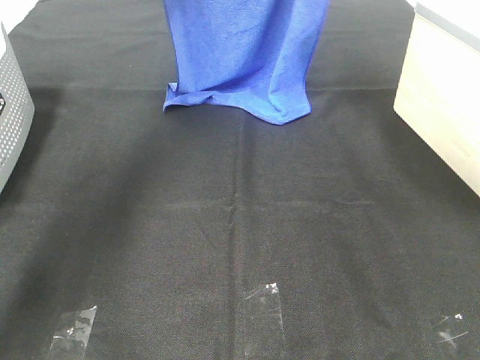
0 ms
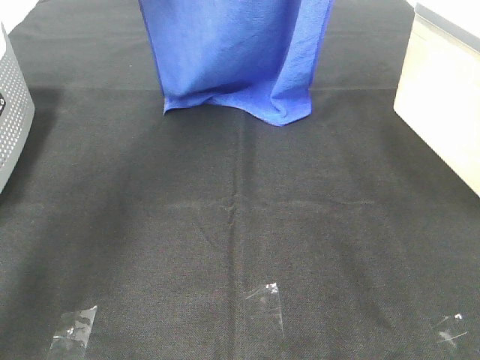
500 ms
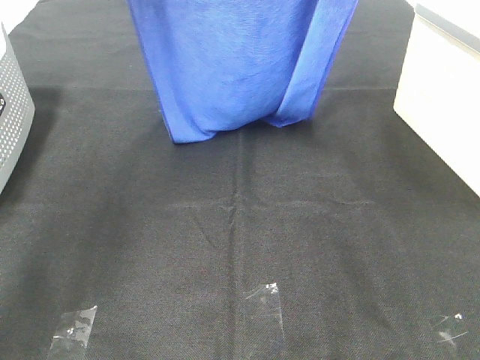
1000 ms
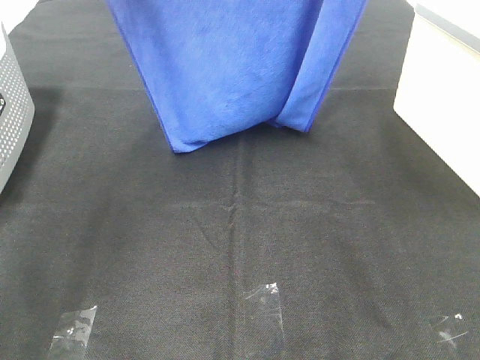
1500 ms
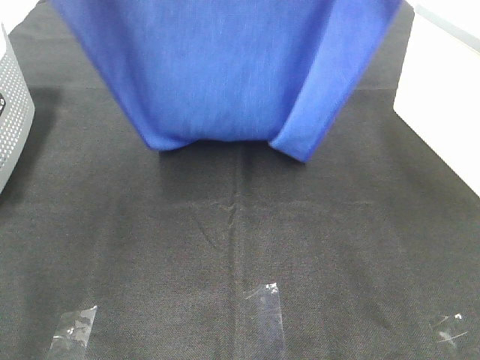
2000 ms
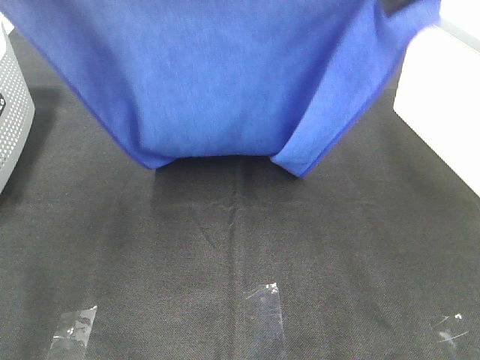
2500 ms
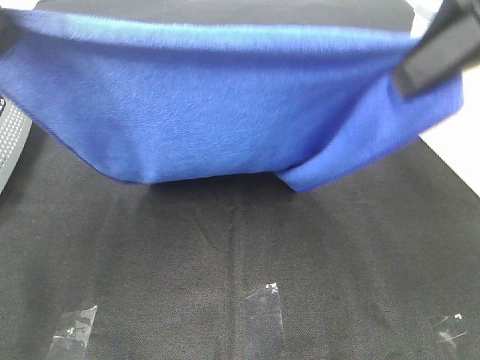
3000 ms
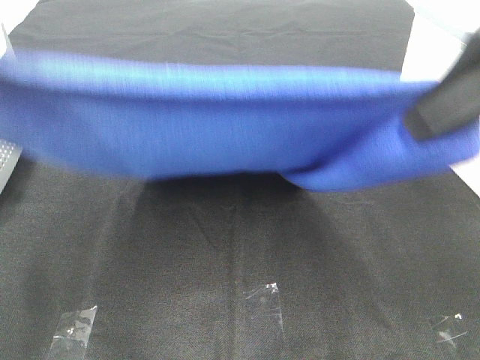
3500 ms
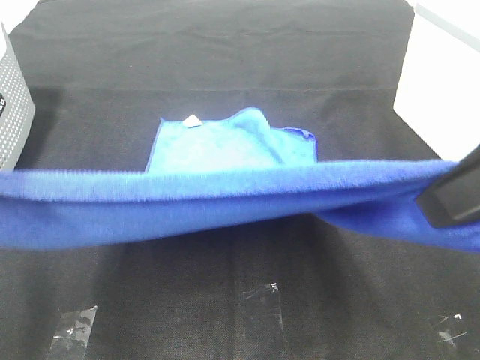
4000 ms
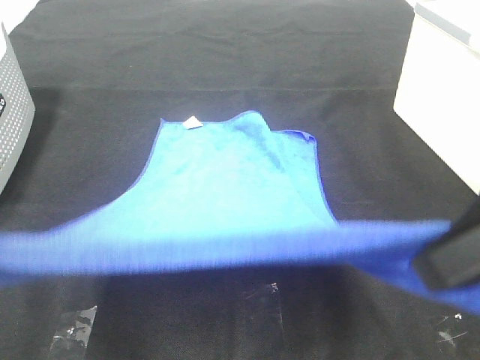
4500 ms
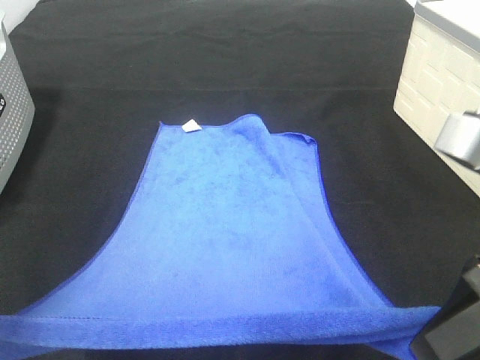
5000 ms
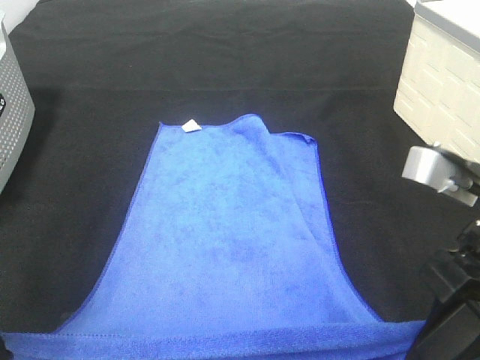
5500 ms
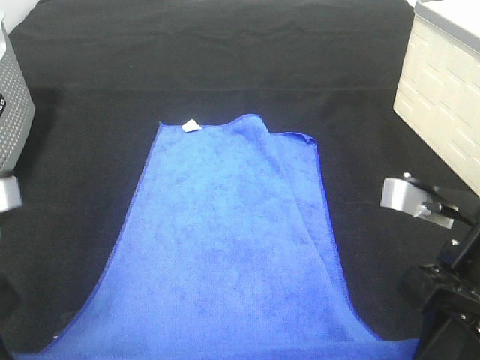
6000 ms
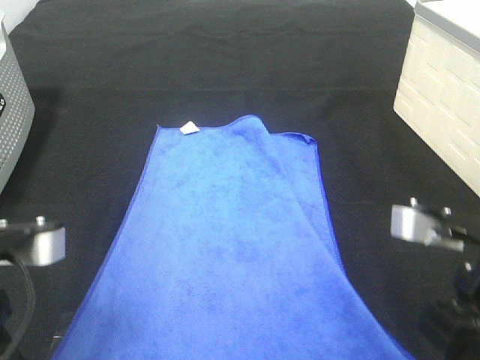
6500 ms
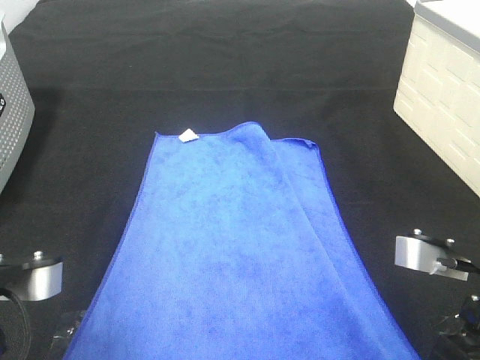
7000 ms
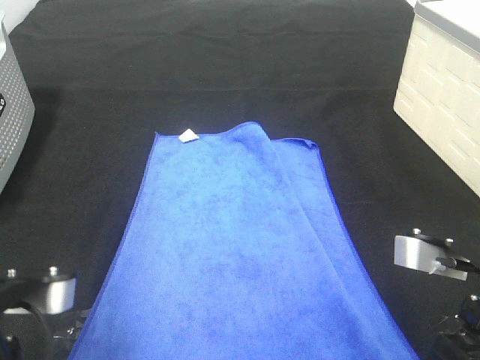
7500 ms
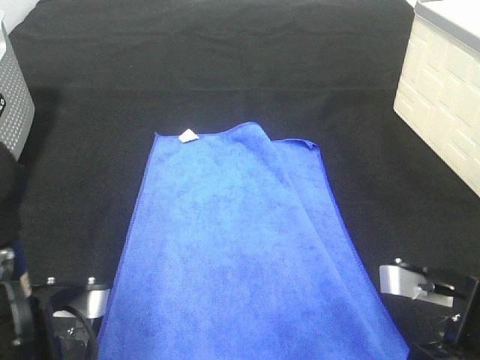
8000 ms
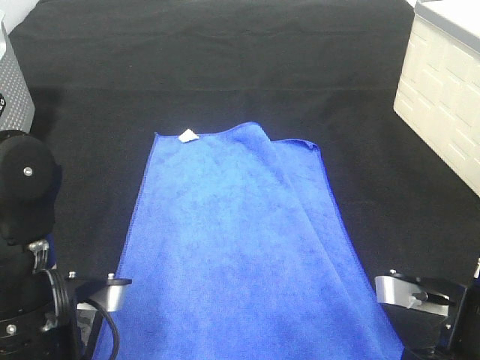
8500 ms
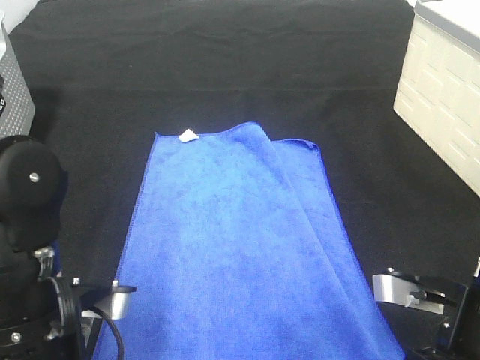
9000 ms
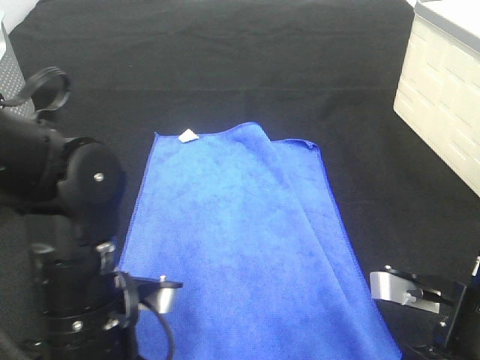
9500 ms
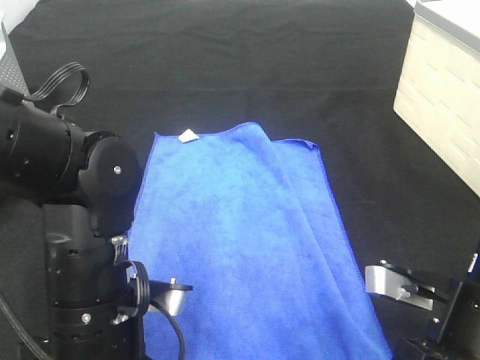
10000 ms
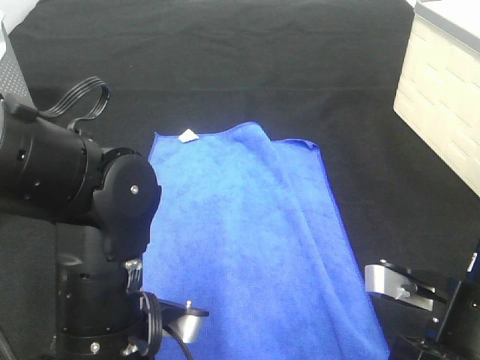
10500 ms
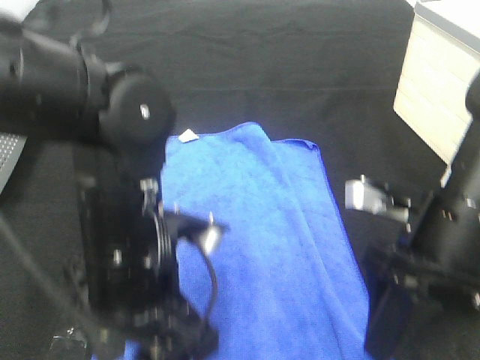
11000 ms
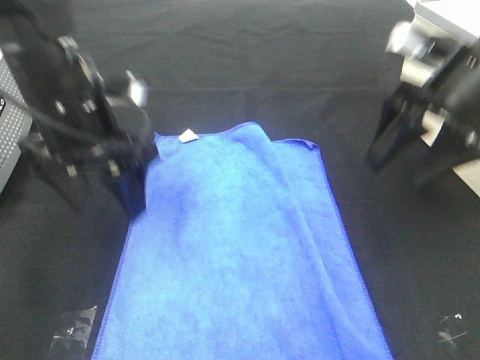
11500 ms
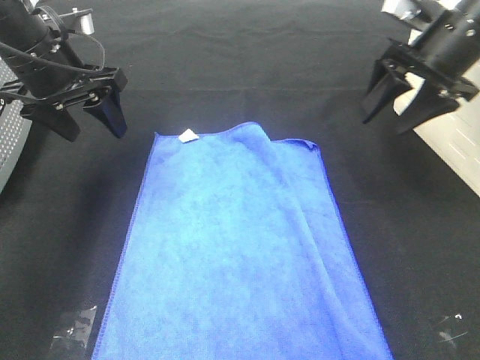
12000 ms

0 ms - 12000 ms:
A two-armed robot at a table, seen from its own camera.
Task of the whole recording: Remove the towel and place it.
Step, 0 ms - 4500 ms: Left hand: spread the blue towel flat on the table.
Step, 0 ms - 4500 ms: Right hand: spread the blue towel flat on the table.
0 ms - 2000 ms: The two grippers go approximately 20 cm backward.
2000 ms - 4000 ms: The left gripper is displaced downward and backward by about 20 cm; the right gripper travels backward and downward by some 15 cm.
4000 ms - 6000 ms: The grippers both shift downward by about 10 cm.
6000 ms - 8000 ms: The left gripper heads downward and to the right, covering approximately 10 cm. Meanwhile the right gripper heads downward, covering some 5 cm.
8000 ms - 10000 ms: The left gripper moves to the right, about 5 cm.
10000 ms - 12000 ms: The right gripper shifts approximately 25 cm forward and upward, and opens its fingers; the left gripper is displaced forward, to the left and upward by roughly 30 cm, and opens its fingers.

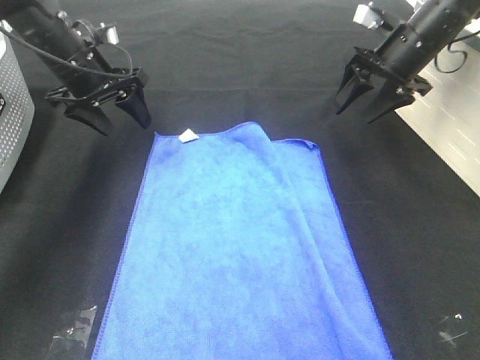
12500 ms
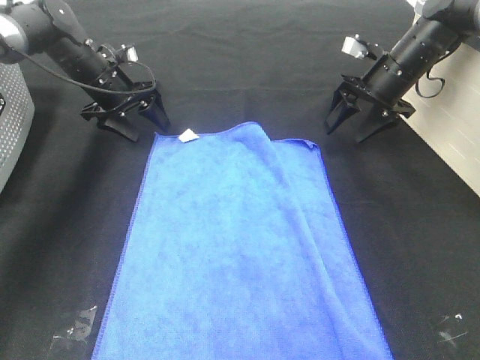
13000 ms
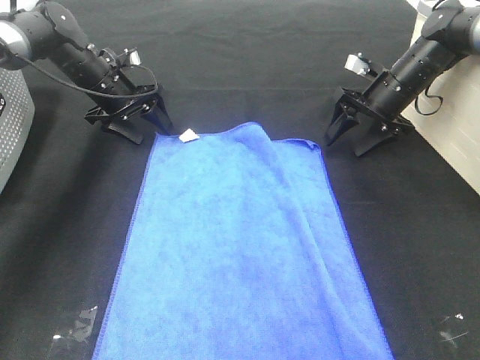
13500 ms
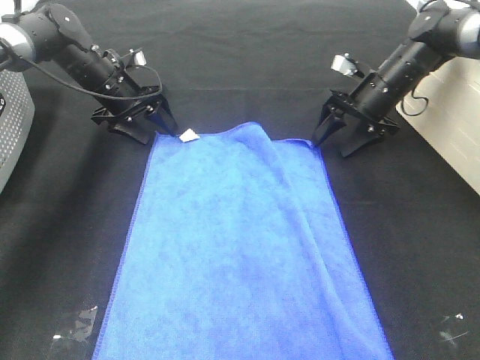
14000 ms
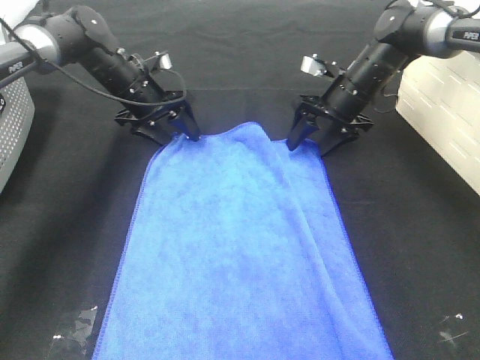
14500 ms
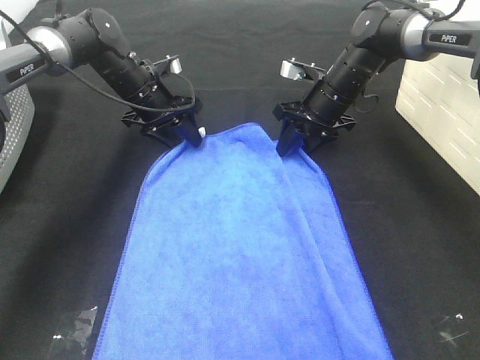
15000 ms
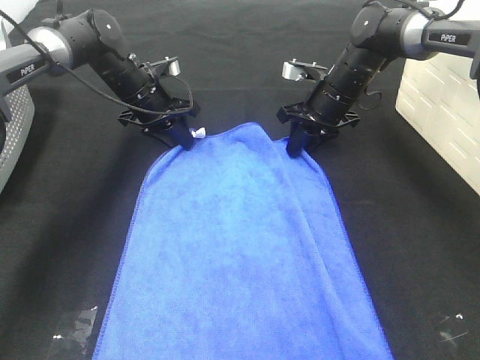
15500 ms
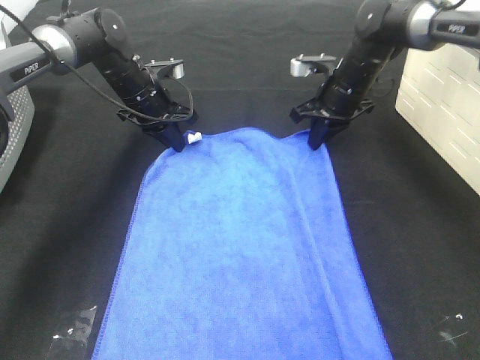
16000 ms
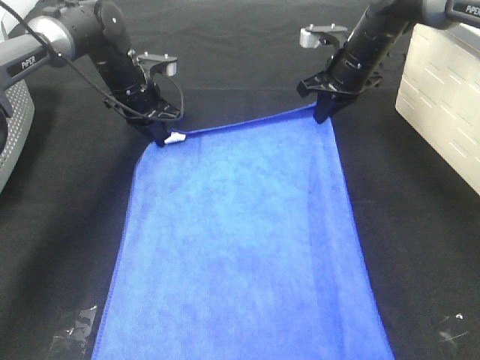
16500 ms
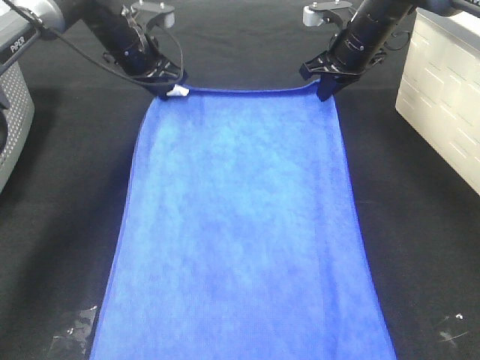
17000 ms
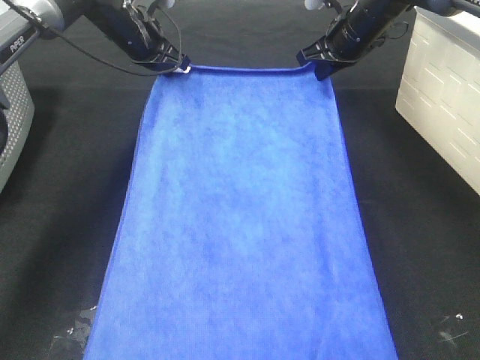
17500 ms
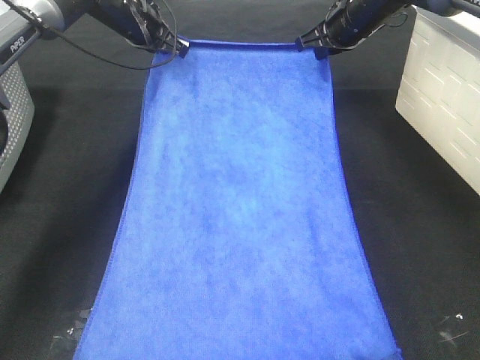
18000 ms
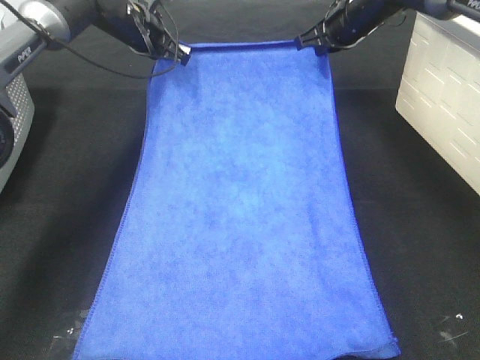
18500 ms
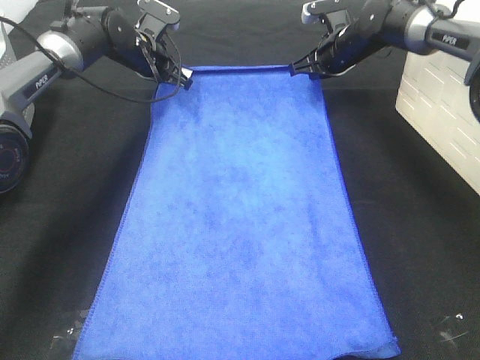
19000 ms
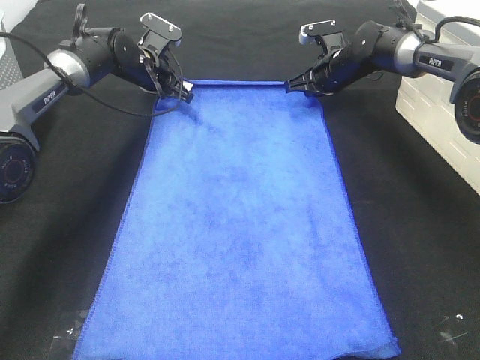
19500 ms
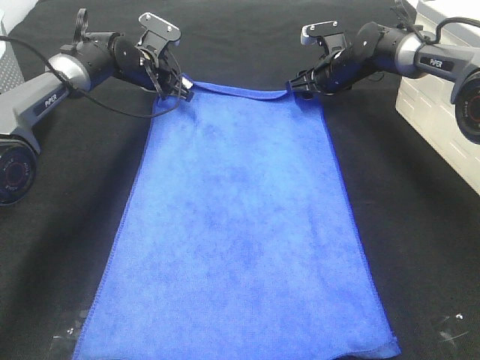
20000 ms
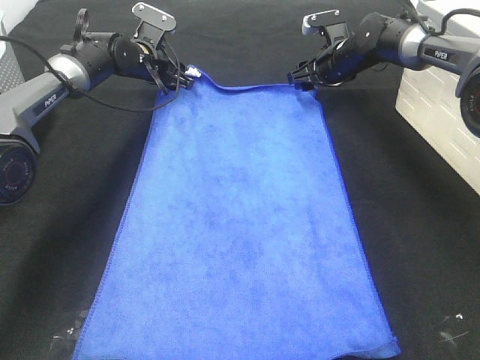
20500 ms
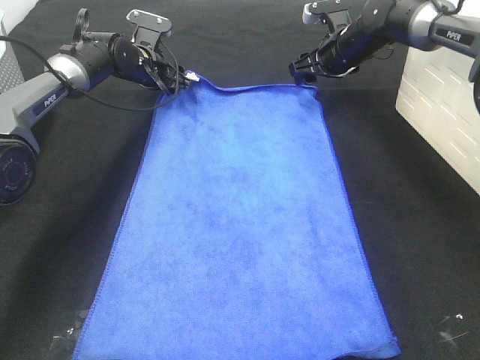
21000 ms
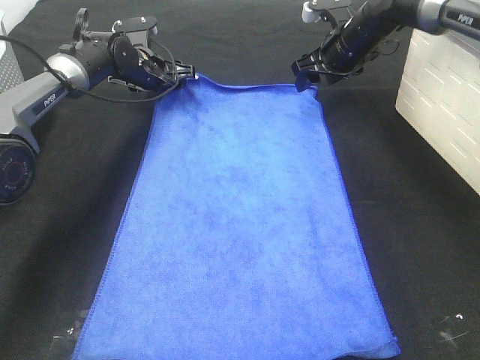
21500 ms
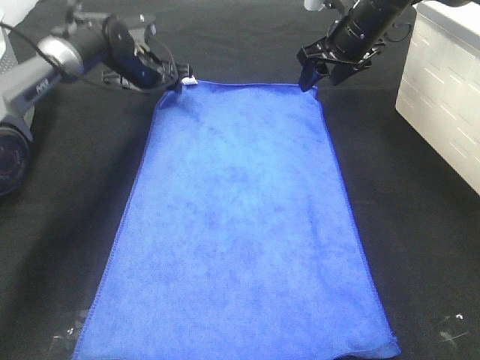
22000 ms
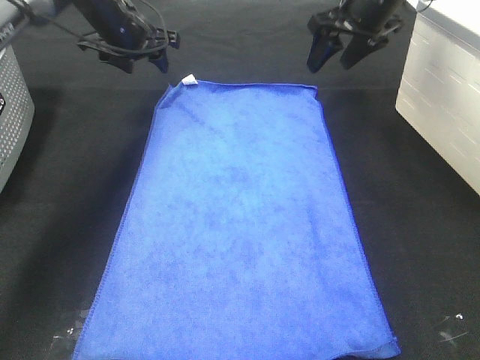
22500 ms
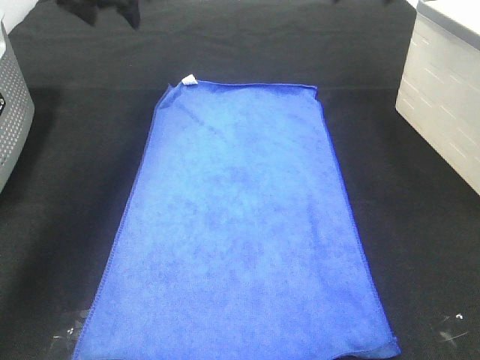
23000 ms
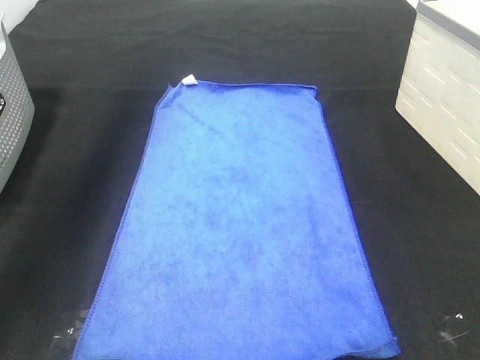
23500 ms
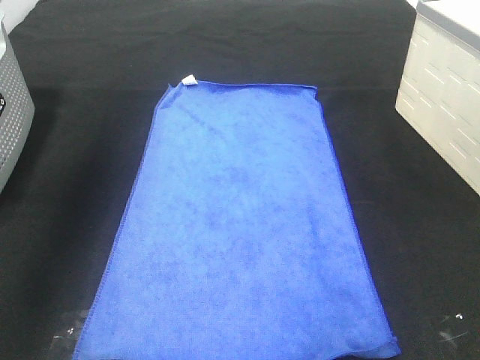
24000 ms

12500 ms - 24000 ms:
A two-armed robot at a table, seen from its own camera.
Task of the whole recording: Remove the towel and place it.
12500 ms - 14500 ms: The right gripper shifts some 10 cm downward and to the left. The left gripper goes approximately 10 cm downward and to the right.
14500 ms - 16500 ms: The left gripper closes up, while the right gripper shifts by roughly 5 cm, and closes its fingers.
16500 ms - 18500 ms: The left gripper shifts about 10 cm upward and forward, while the right gripper changes place by some 5 cm.
18500 ms - 20000 ms: The grippers both shift downward by roughly 10 cm. The right gripper opens.
20000 ms - 22000 ms: The right gripper moves upward and backward, some 10 cm, while the left gripper opens up.
22000 ms - 24000 ms: The right gripper moves backward and upward, approximately 40 cm, while the left gripper goes about 35 cm upward and backward.

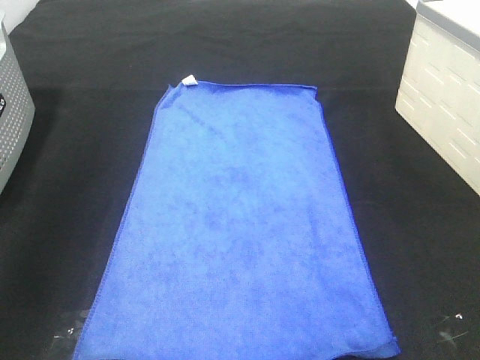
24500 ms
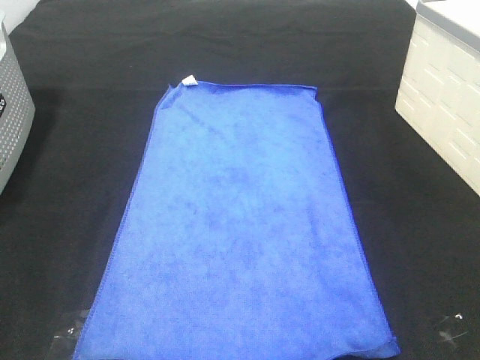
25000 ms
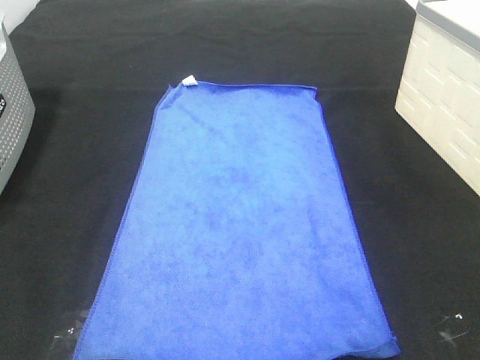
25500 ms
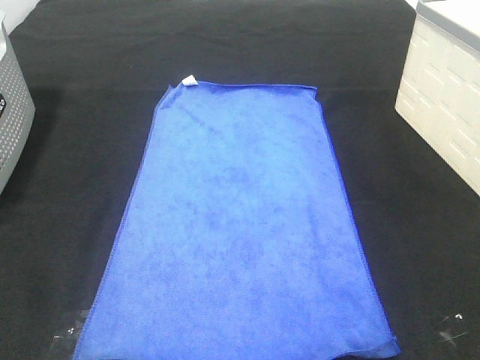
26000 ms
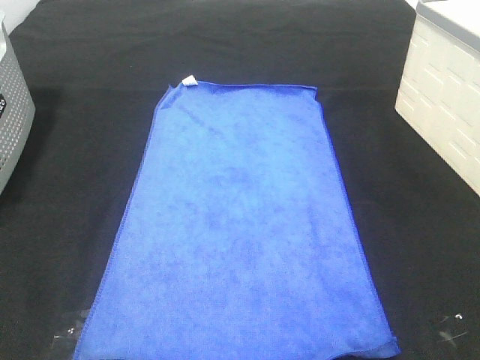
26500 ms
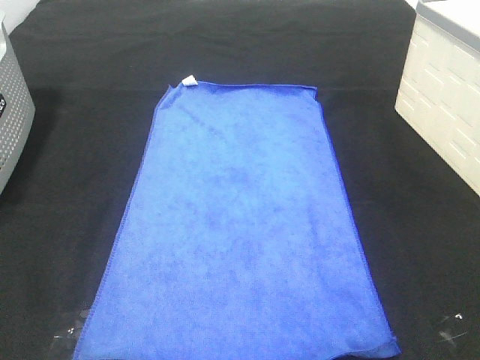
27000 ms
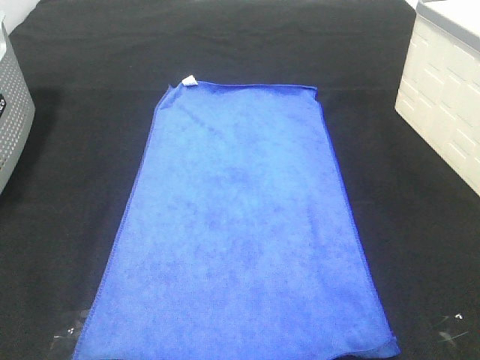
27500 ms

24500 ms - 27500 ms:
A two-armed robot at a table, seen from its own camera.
Task of the whole recording: Remove the towel and place it.
26000 ms - 27500 ms: Neither gripper changes place.
